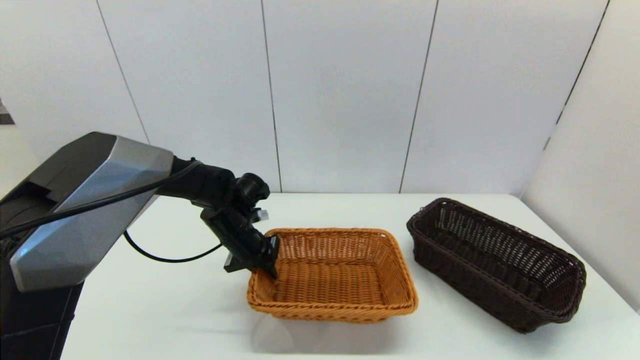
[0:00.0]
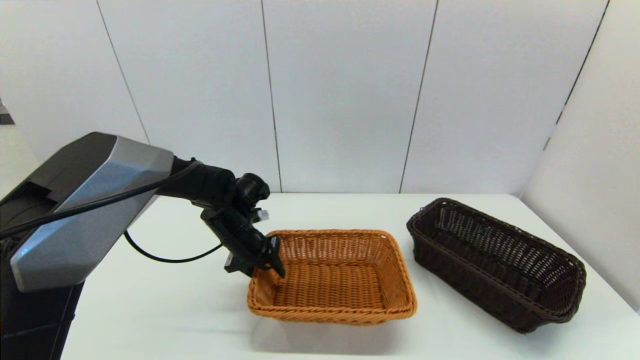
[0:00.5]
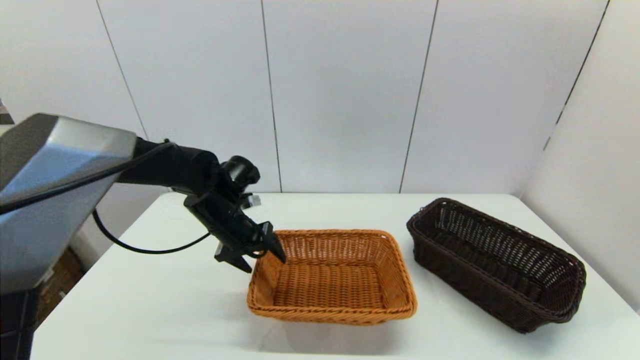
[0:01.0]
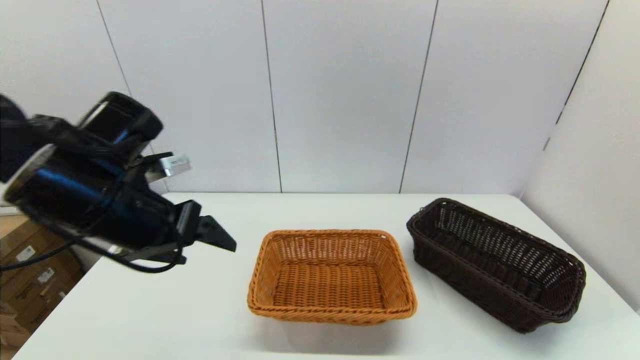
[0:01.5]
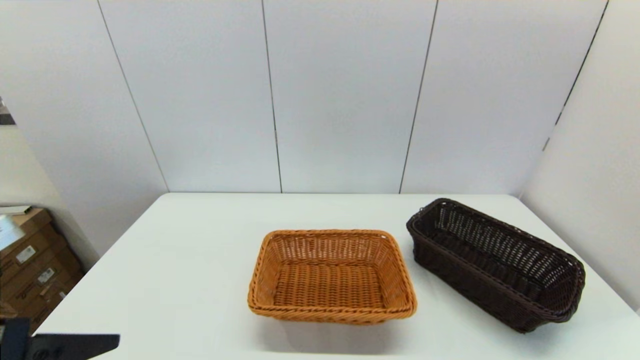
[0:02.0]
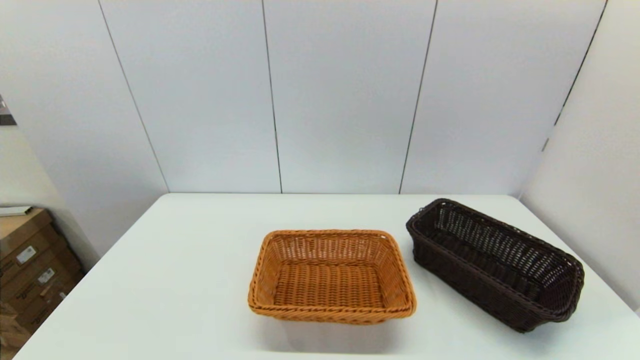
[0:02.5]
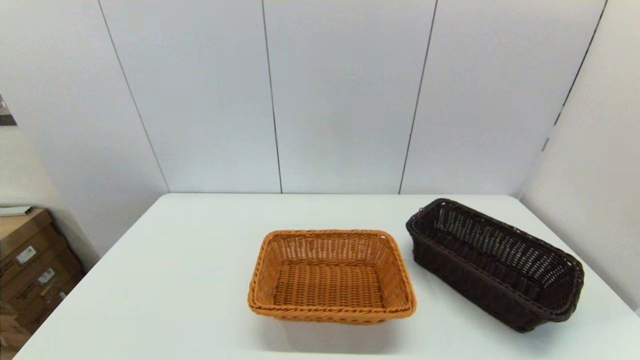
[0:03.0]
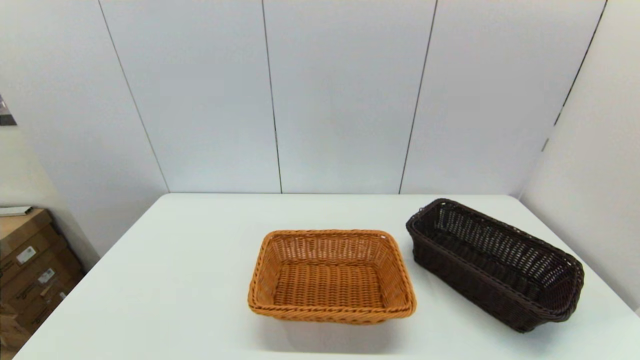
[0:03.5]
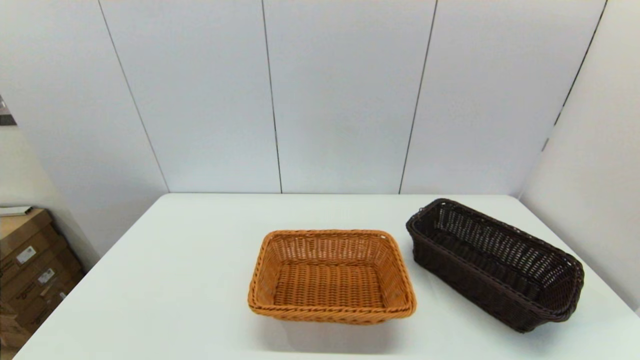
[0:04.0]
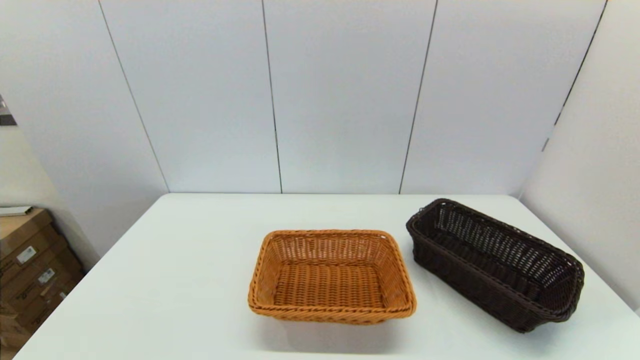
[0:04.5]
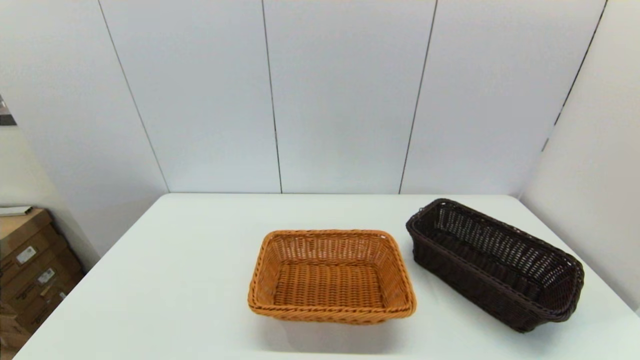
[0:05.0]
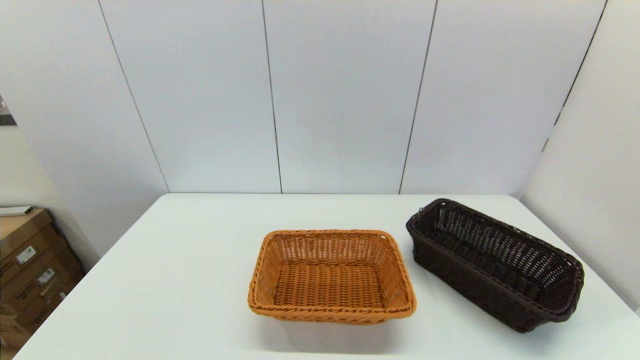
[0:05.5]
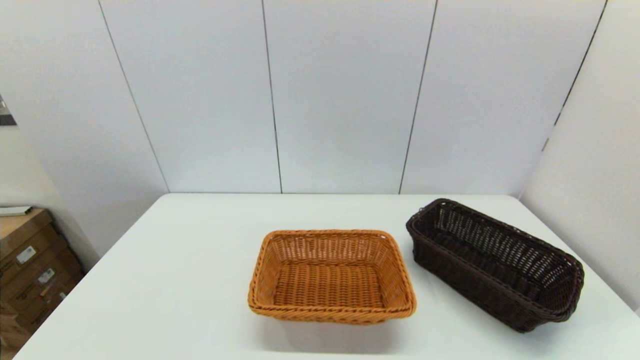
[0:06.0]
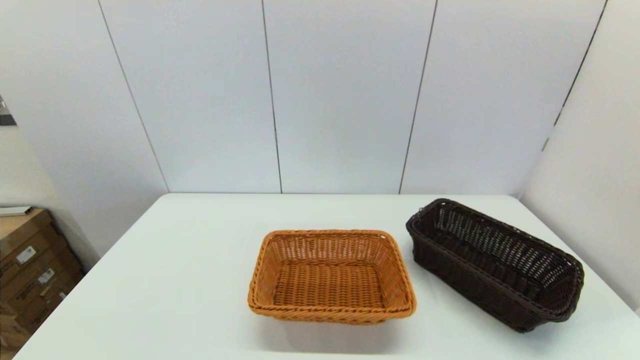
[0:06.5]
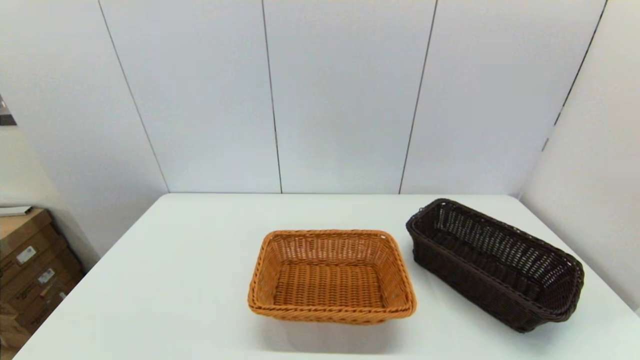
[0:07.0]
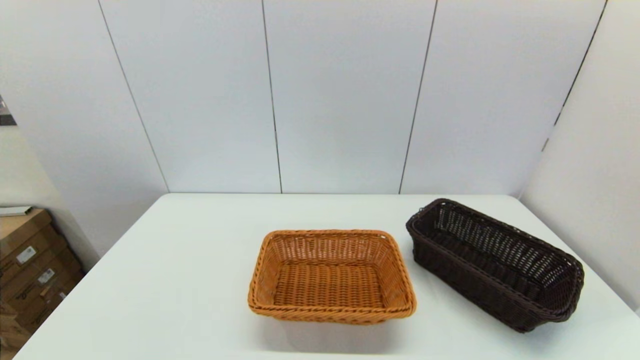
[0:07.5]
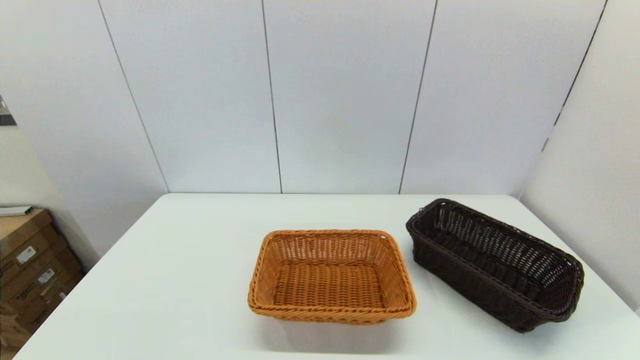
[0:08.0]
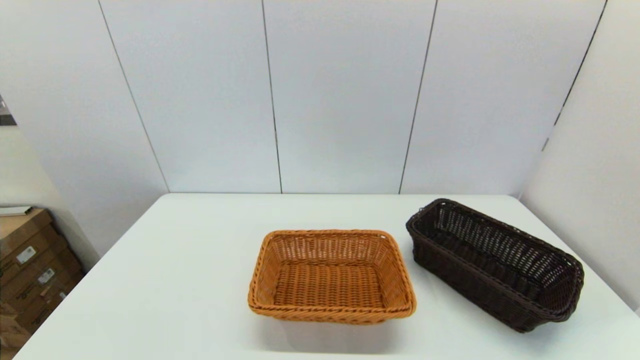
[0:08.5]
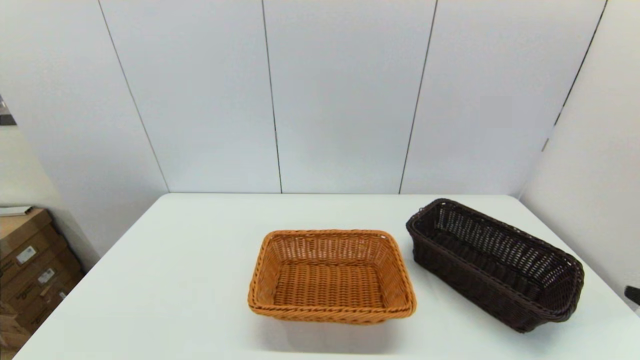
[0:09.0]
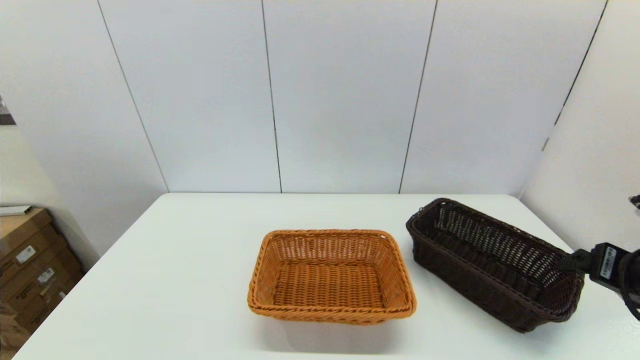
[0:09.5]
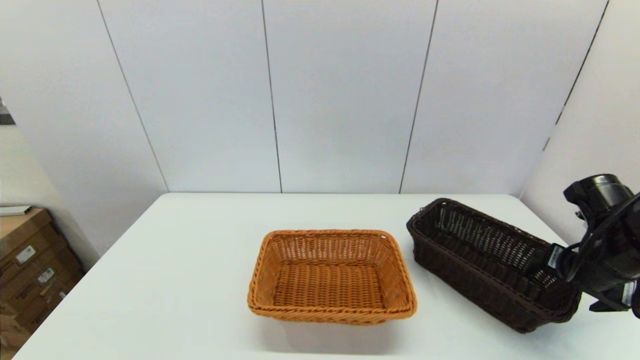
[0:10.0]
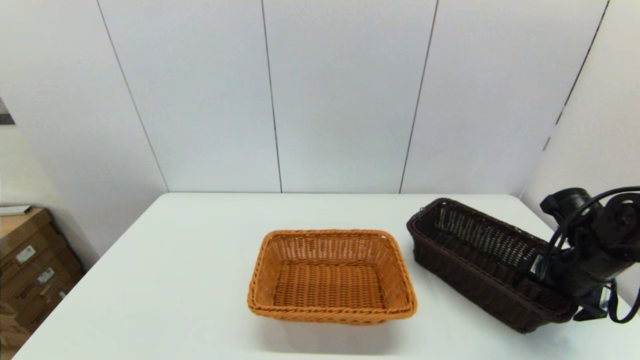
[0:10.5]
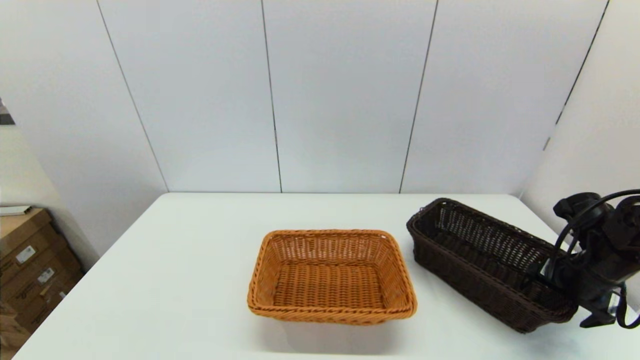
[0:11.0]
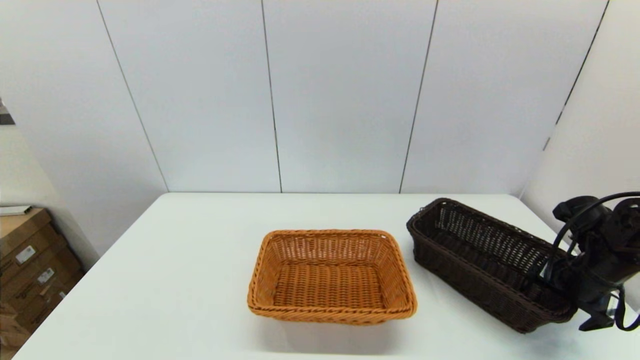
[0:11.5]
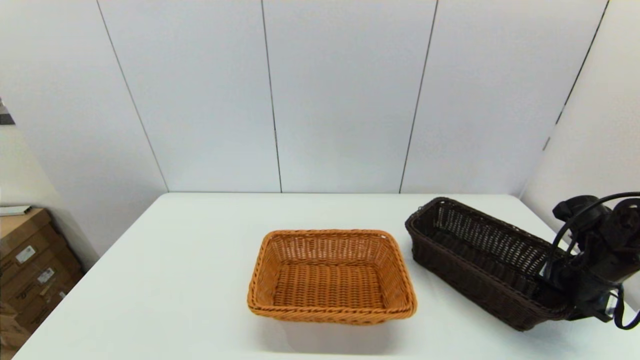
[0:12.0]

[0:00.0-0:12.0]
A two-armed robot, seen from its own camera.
Task of the whole recording: stack a basket on top of another basket.
0:00.0 to 0:02.0: The left gripper heads backward, upward and to the left, covering roughly 35 cm, and opens its fingers.
0:02.0 to 0:04.0: The left gripper moves downward and backward, some 15 cm.
0:08.0 to 0:10.0: The right gripper shifts roughly 30 cm forward.
0:10.0 to 0:12.0: The right gripper shifts by approximately 5 cm, and closes.

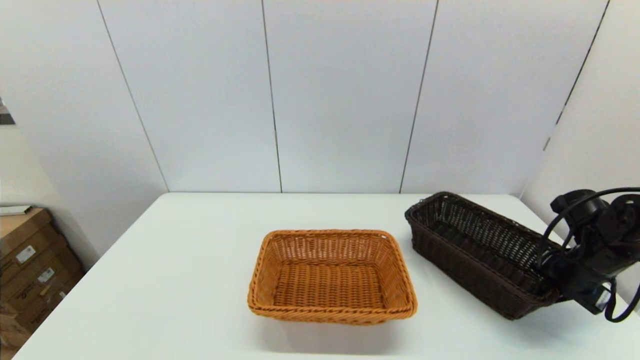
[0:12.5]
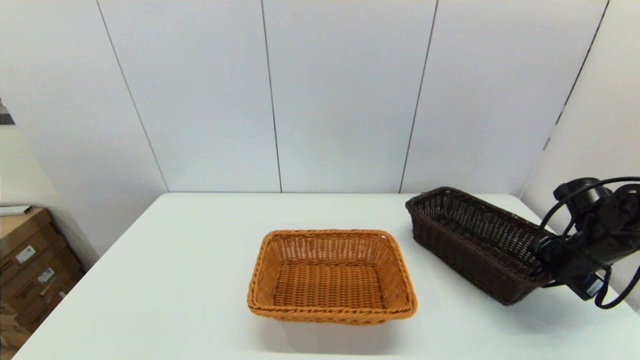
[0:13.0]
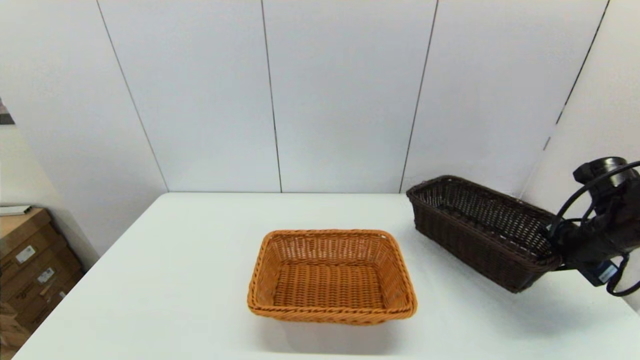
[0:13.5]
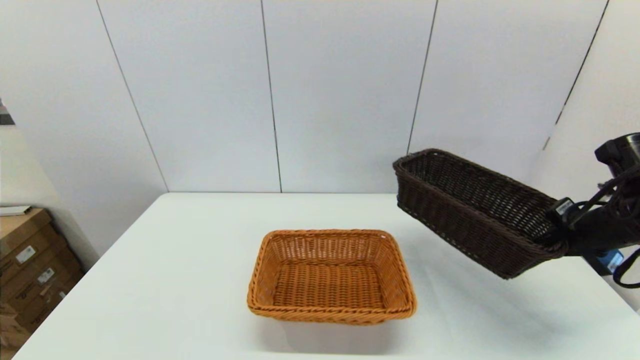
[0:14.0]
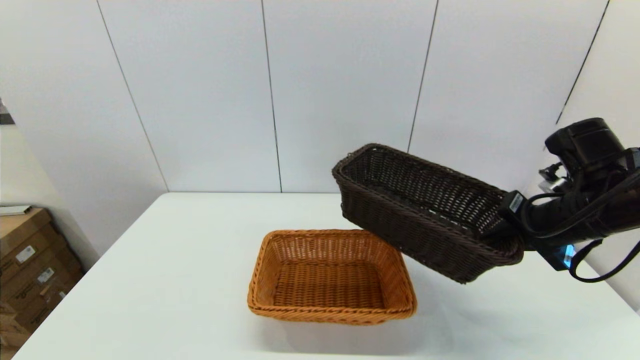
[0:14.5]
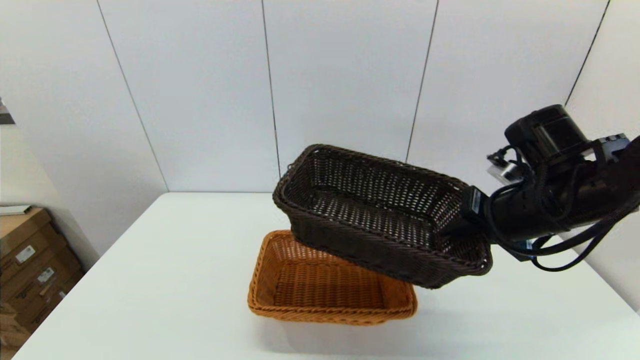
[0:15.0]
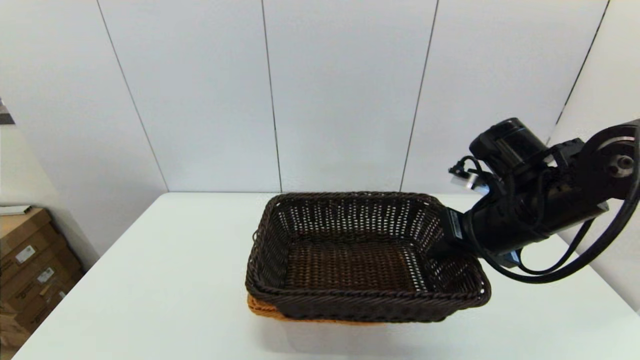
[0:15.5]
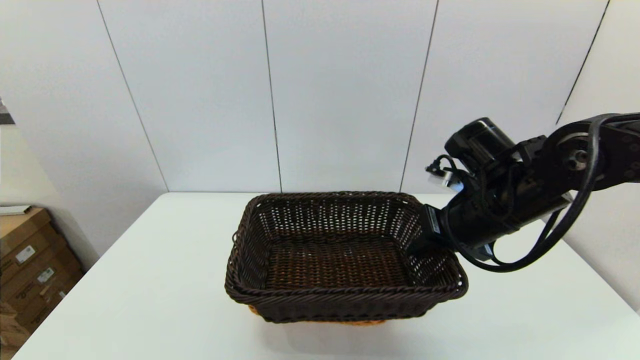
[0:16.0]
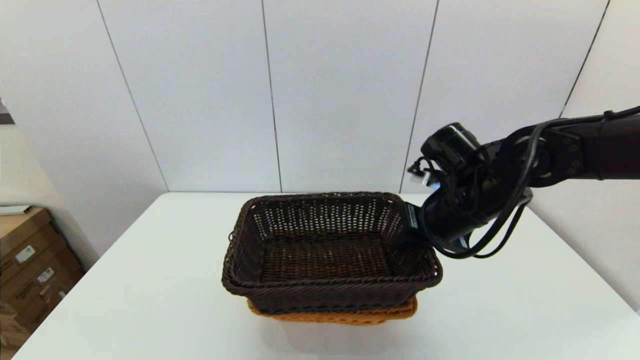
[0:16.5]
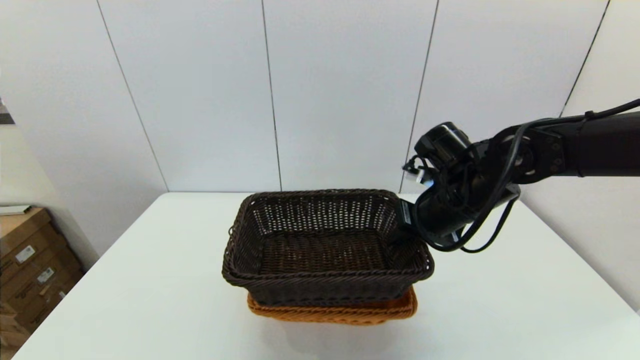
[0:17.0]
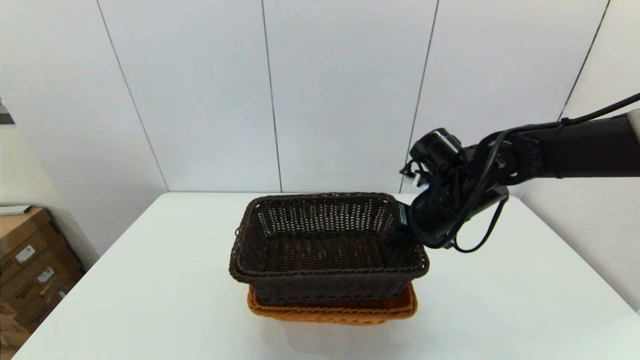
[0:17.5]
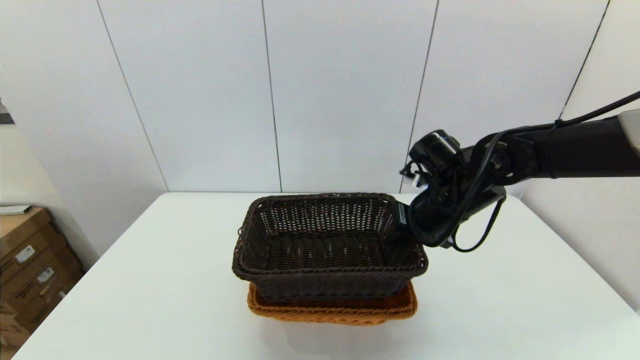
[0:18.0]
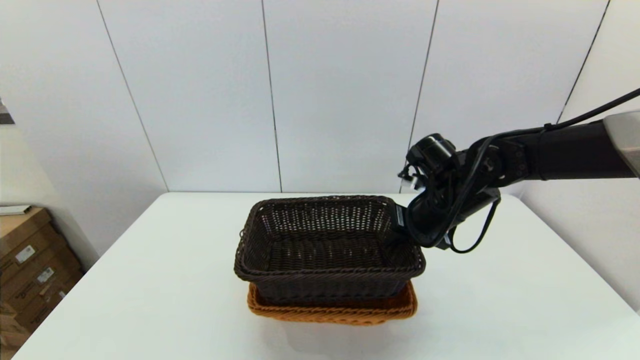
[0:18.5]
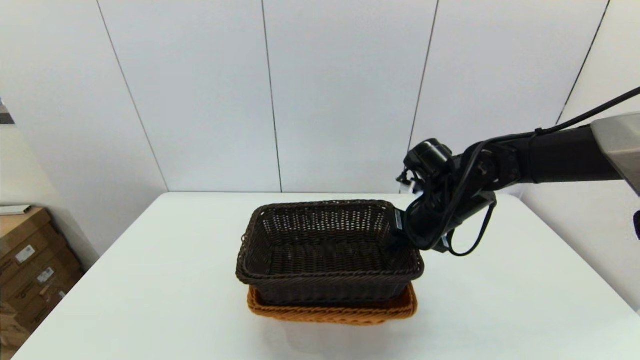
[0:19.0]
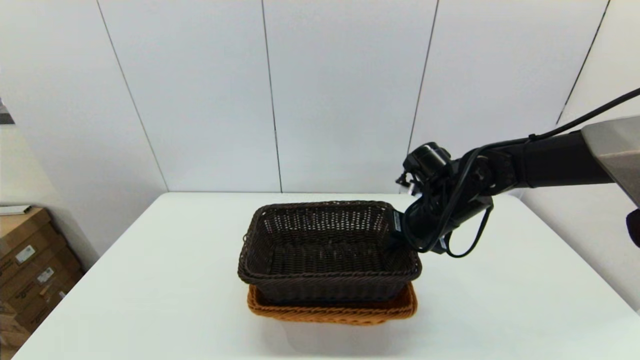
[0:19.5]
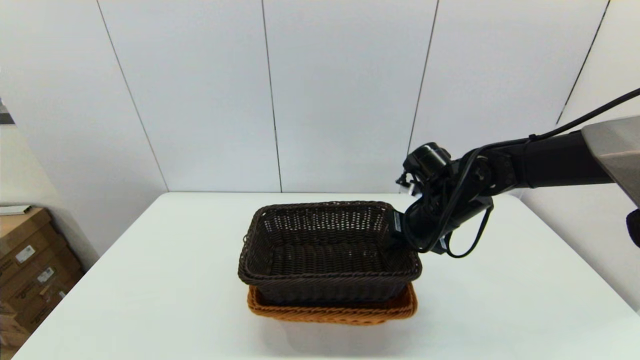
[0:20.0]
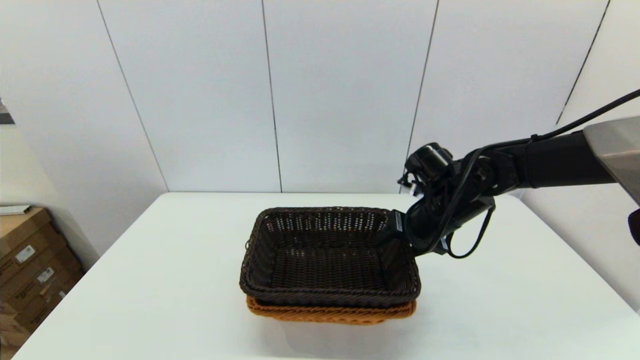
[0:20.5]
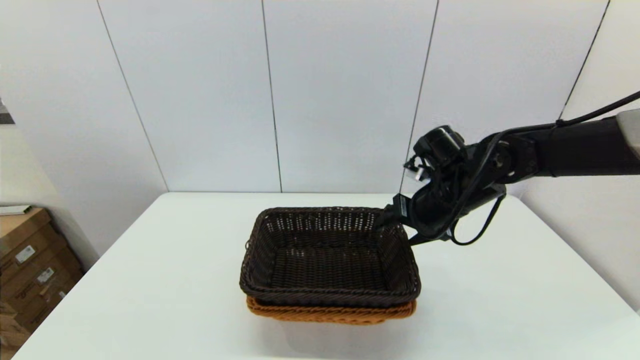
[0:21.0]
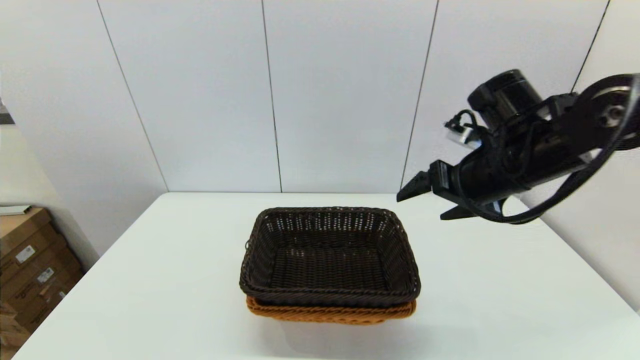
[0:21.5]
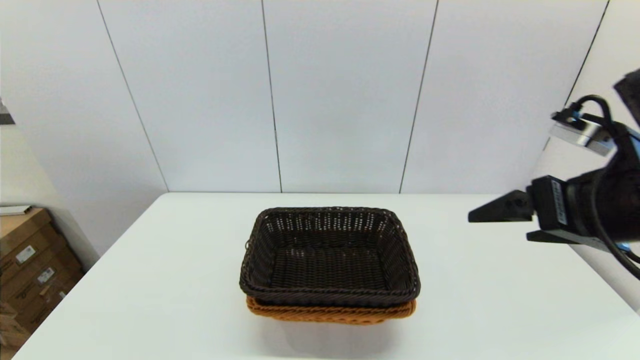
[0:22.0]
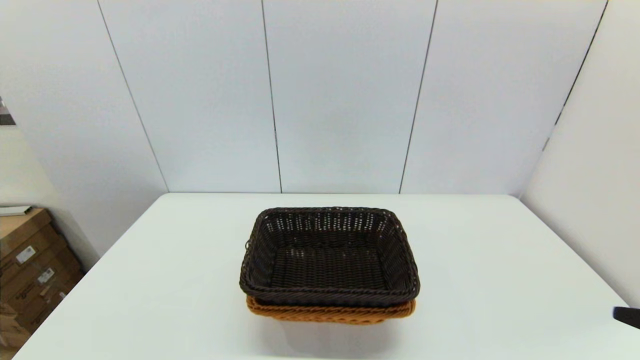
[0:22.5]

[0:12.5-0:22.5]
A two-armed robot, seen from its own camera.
Task of the whole recording: stack a basket on top of another basket.
Step, 0:13.0 to 0:21.5: Place the dark basket into the light color basket with the right gripper.
0:12.5 to 0:14.5: The right gripper goes roughly 15 cm upward and to the left.
0:14.5 to 0:16.5: The right gripper heads to the left, covering about 10 cm.
0:16.5 to 0:18.5: The grippers move only a little.
0:18.5 to 0:20.5: The right gripper opens up.
0:20.5 to 0:22.5: The right gripper heads backward and to the right, covering about 35 cm, and opens up.
